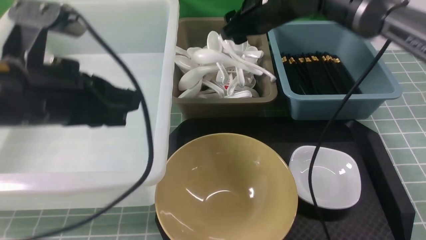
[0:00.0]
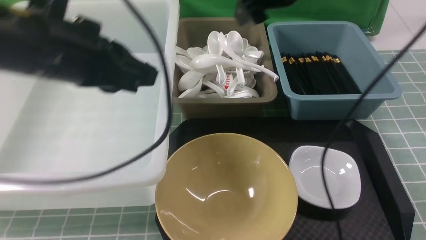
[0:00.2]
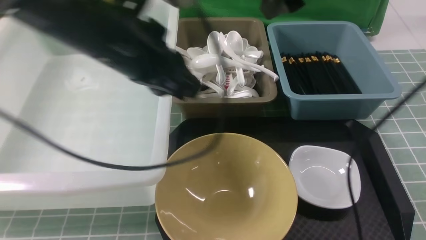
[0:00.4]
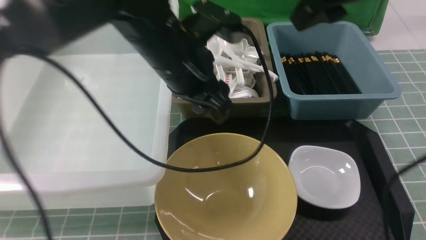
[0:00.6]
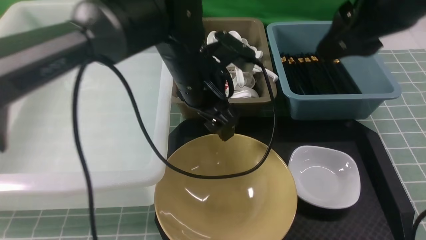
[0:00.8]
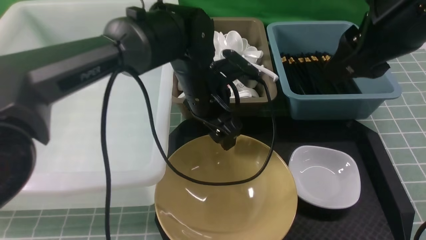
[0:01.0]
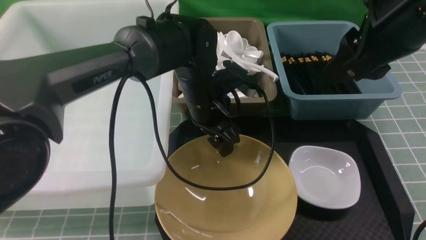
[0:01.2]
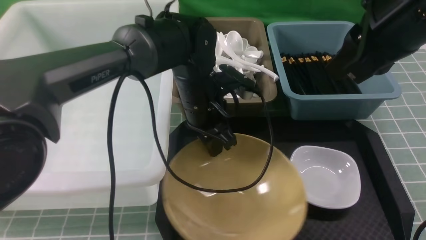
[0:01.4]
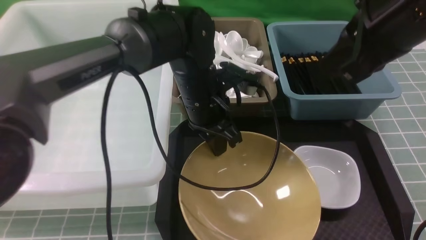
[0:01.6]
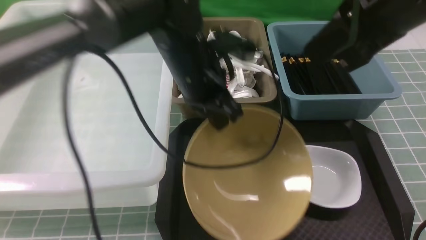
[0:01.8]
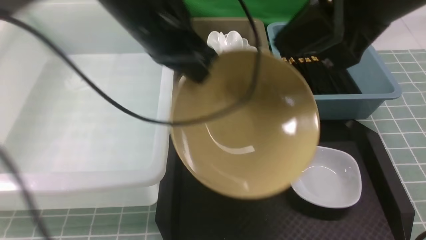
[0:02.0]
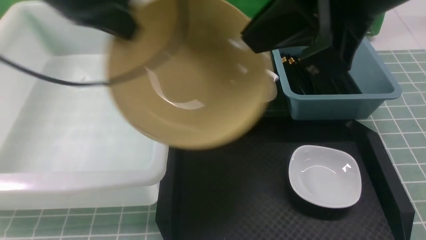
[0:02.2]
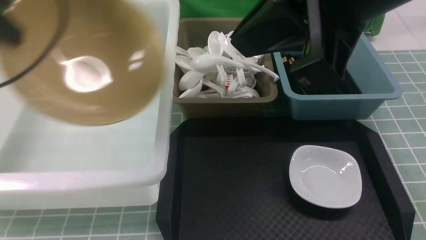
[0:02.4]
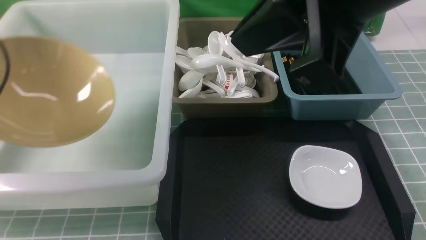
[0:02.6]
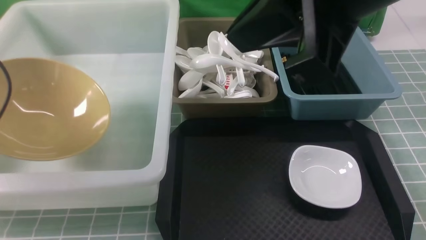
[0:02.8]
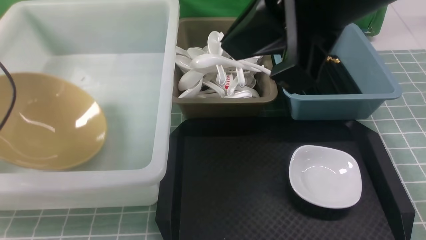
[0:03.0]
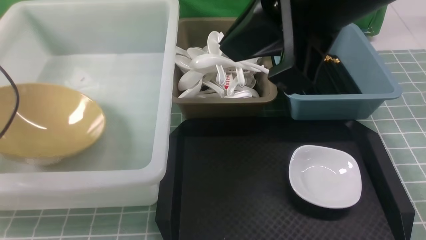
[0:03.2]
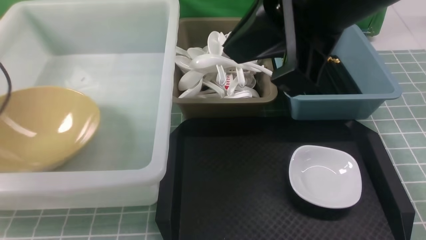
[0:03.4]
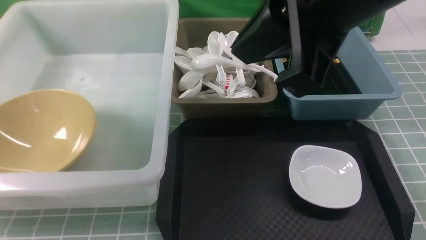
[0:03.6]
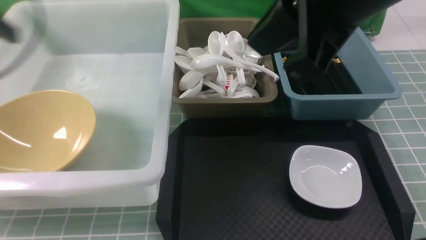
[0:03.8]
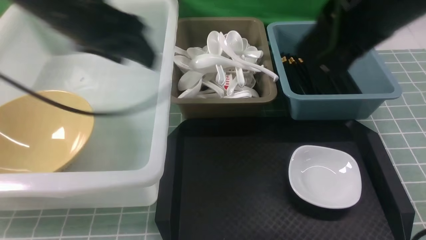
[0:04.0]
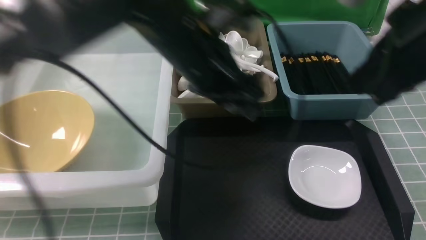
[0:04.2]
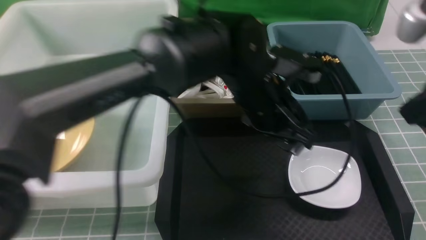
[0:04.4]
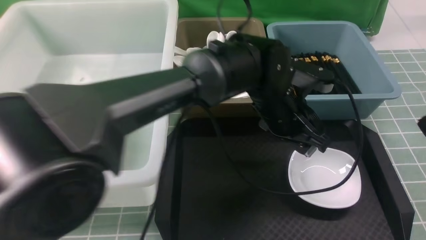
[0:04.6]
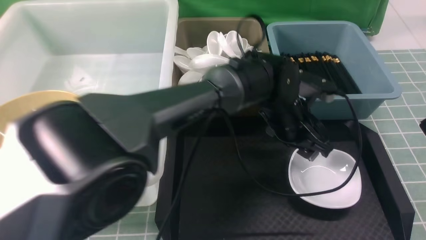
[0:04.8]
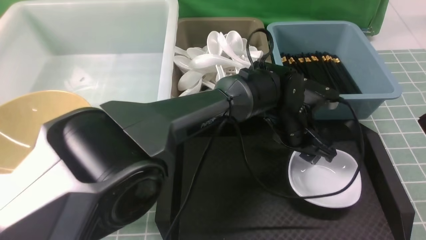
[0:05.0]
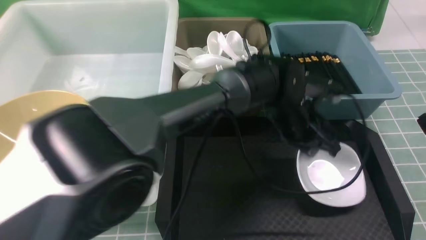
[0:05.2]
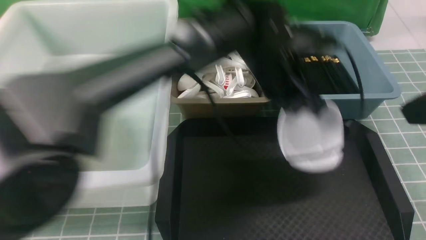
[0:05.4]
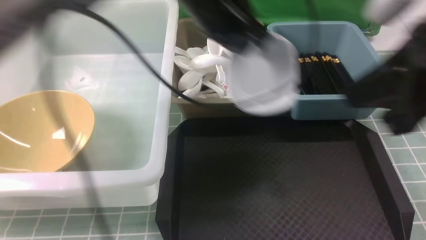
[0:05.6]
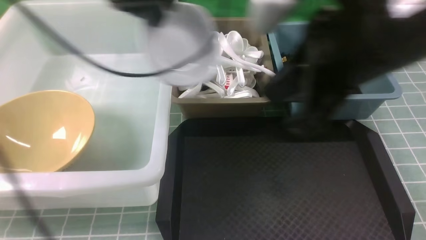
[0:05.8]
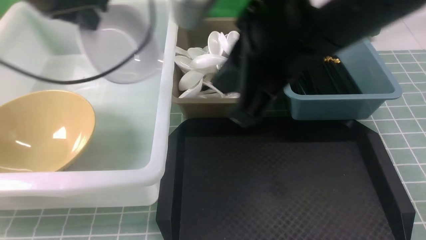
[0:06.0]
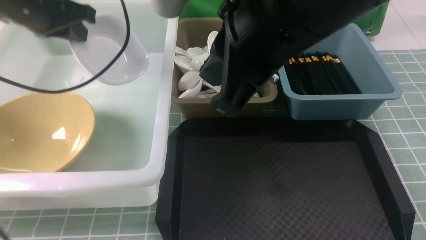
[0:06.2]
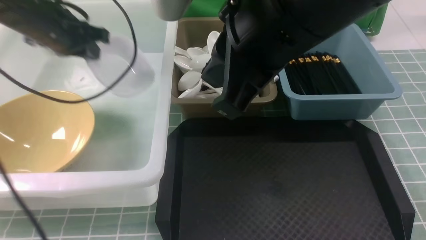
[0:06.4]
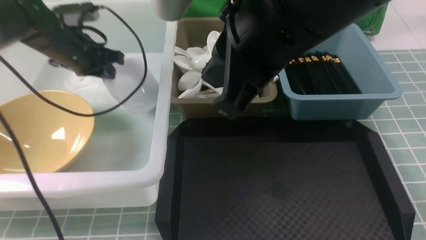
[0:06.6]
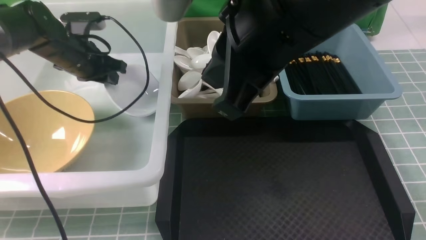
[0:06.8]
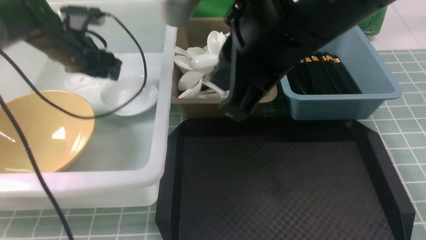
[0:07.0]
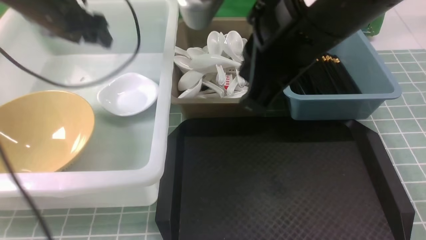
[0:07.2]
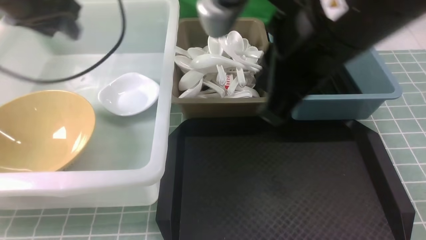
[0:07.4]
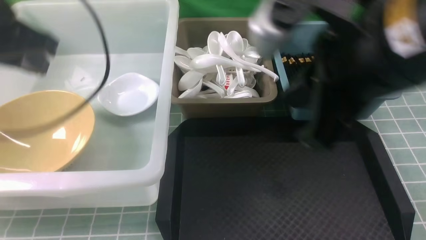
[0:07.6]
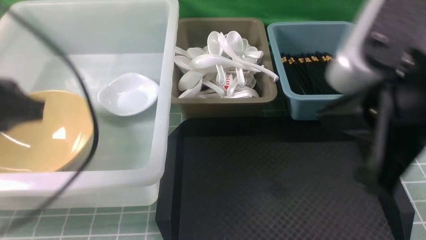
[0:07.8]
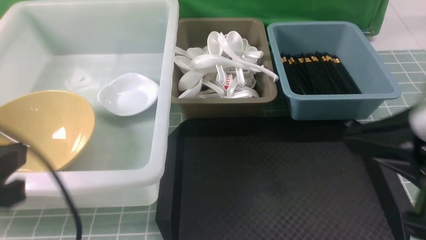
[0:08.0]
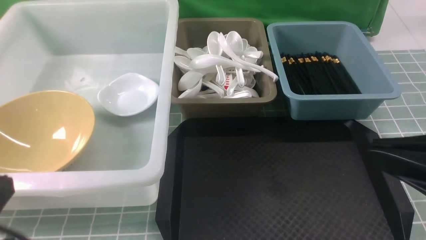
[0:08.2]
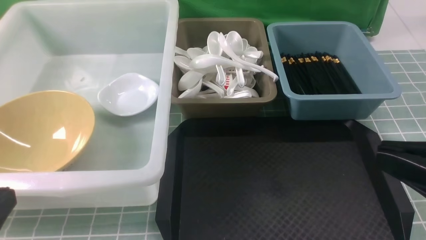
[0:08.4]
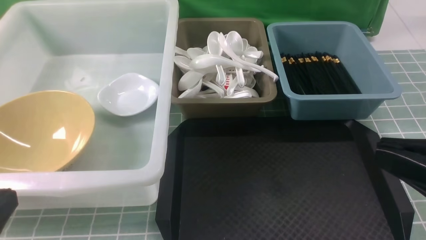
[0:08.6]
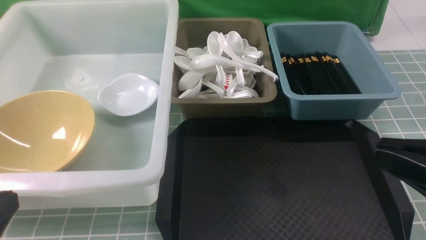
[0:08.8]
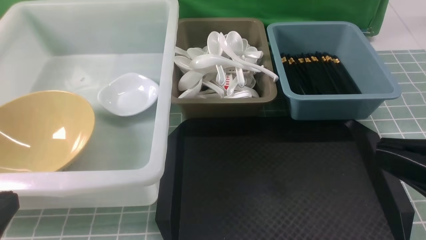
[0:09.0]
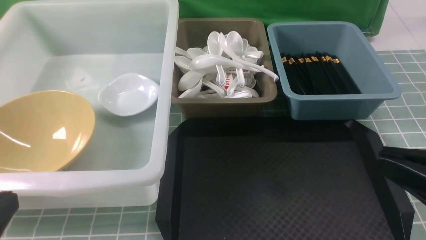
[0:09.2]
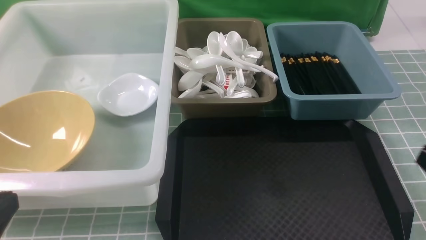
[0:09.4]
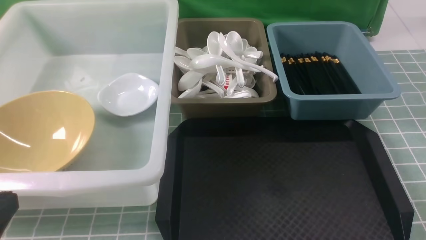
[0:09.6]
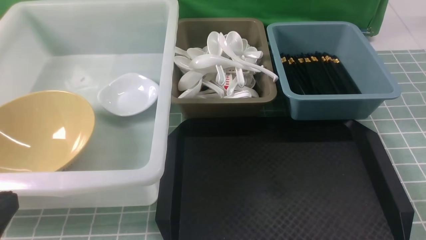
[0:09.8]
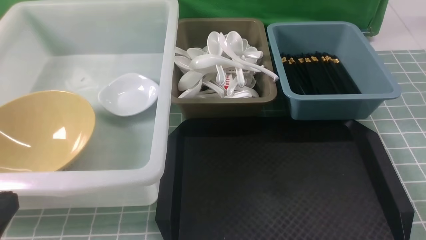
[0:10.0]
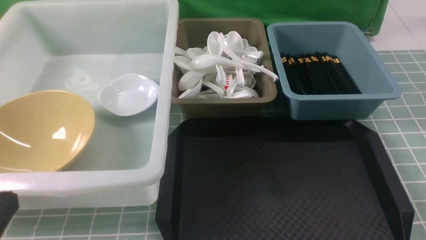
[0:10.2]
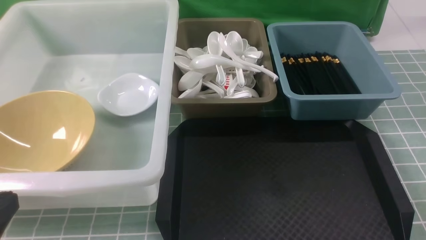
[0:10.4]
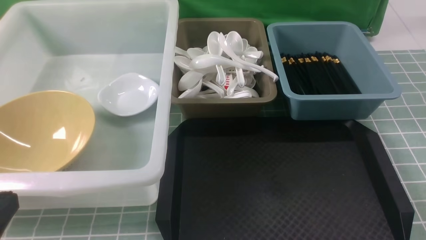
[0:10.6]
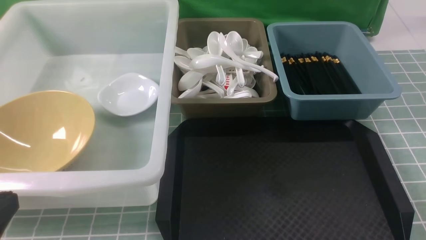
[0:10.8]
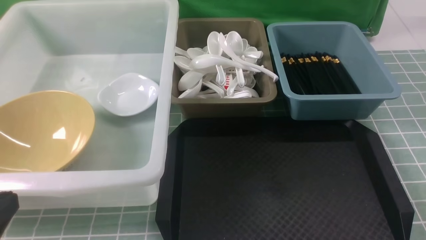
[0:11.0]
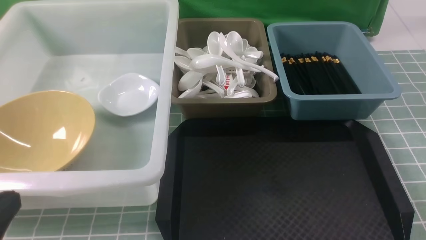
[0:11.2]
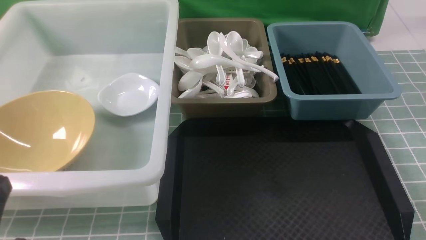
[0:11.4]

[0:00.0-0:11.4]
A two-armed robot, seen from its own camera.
Task of the whole recording: on blue table put chopsticks spoon bowls plates into blue grey white boxes.
Step, 0:00.2 to 0:01.8: use the left arm to grab the yellow noodle bowl on the left.
Step, 0:02.0 to 0:03.4: use the left arm to put the noodle bowl into the large storage box on the left.
Step, 0:03.8 to 0:05.4: use the left arm to grab the plate.
Step, 0:05.6 to 0:07.2: use the left arm to put the plate into the large storage box on the left.
0:00.0 to 0:01.4: The right gripper goes approximately 20 cm backward, to the right and upward, and closes, while the left gripper goes about 25 cm to the right, forward and downward, and opens, then closes once more.
0:01.4 to 0:02.8: The left gripper is displaced to the left by some 35 cm; the right gripper goes some 10 cm to the left, backward and upward.
0:02.8 to 0:04.2: The left gripper travels to the right by about 40 cm, and opens; the right gripper travels to the right and downward by some 10 cm.
0:04.2 to 0:05.6: The left gripper goes downward and returns, roughly 15 cm each way, and closes.
0:05.6 to 0:07.2: The right gripper travels to the left by some 10 cm, while the left gripper heads to the left, covering about 20 cm, and opens.
0:07.2 to 0:08.6: The right gripper is displaced to the right, backward and downward by approximately 20 cm, while the left gripper heads backward, covering roughly 35 cm, and closes.
0:08.6 to 0:10.0: The right gripper moves downward and to the right, approximately 20 cm.

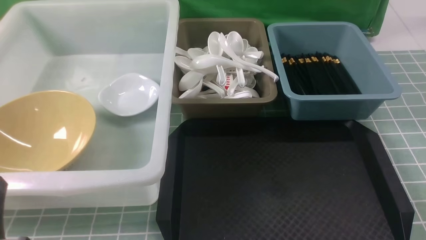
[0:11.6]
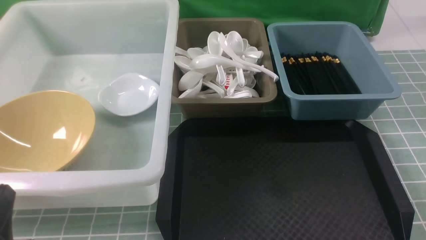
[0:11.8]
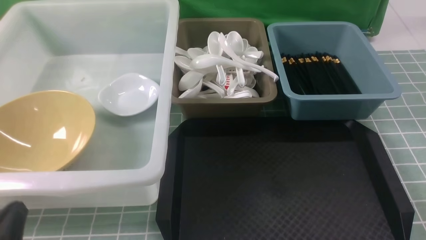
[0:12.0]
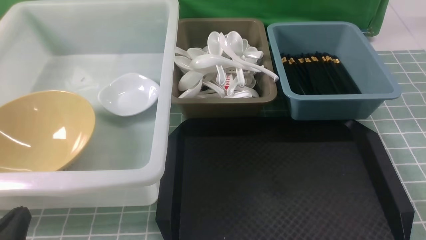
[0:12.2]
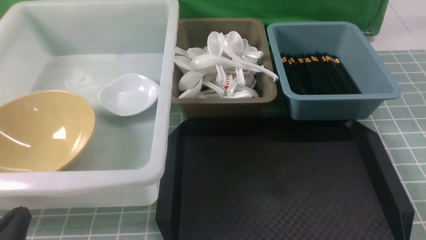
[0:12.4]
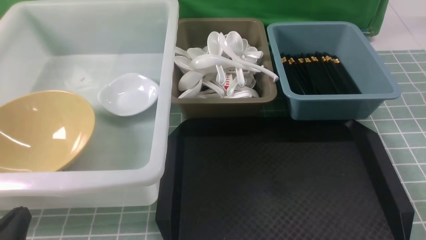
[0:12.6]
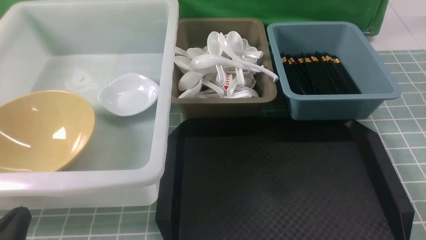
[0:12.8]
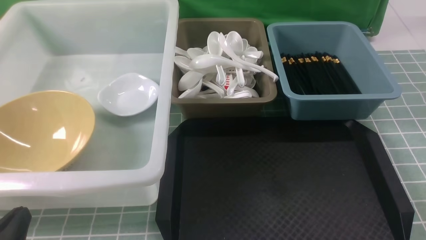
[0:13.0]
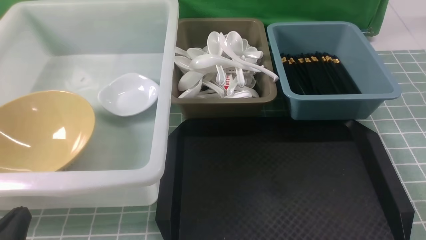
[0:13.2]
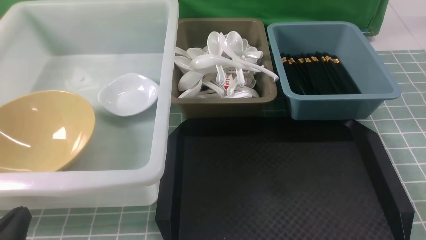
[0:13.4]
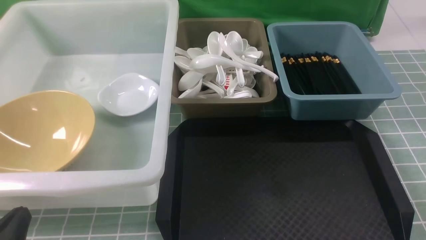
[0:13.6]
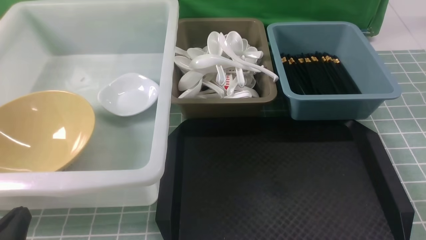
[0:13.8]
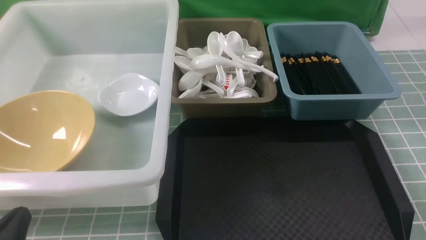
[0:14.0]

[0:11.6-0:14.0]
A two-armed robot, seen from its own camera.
Task of the whole recording: on blue table put chopsticks spoon bowls plates into blue grey white boxes.
0:11.6 to 0:12.8: There are only small adjustments of the grippers.
0:12.8 to 0:14.0: Neither gripper changes place.
